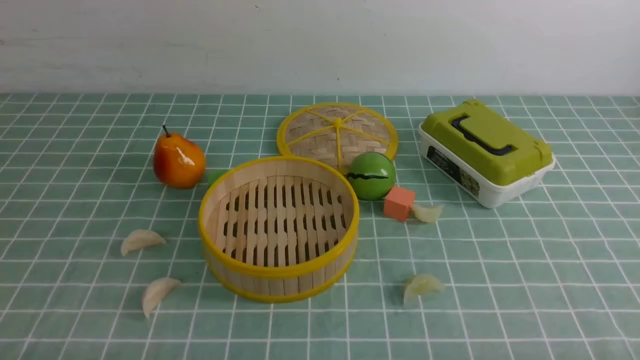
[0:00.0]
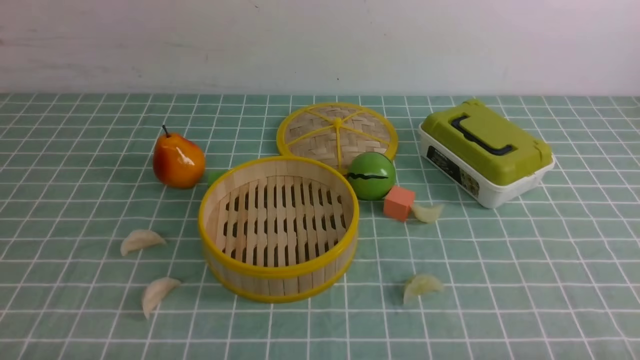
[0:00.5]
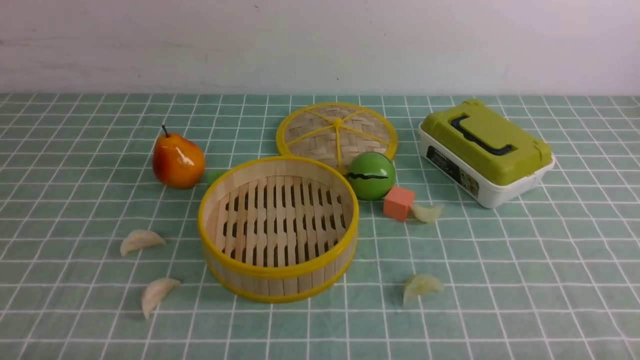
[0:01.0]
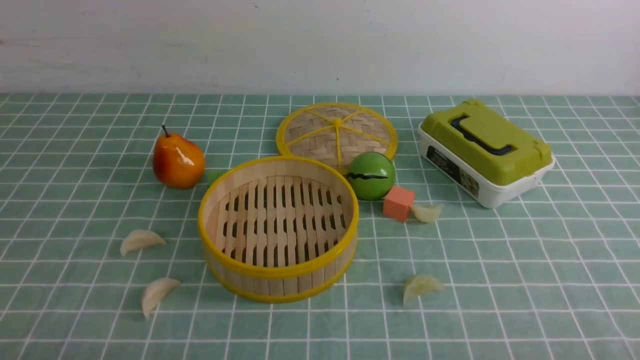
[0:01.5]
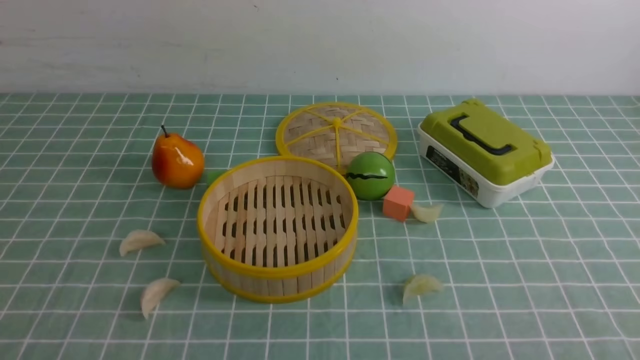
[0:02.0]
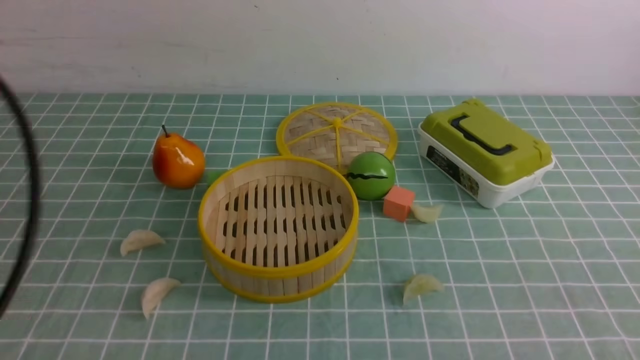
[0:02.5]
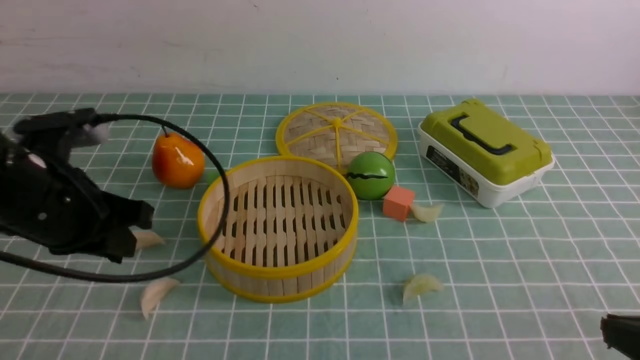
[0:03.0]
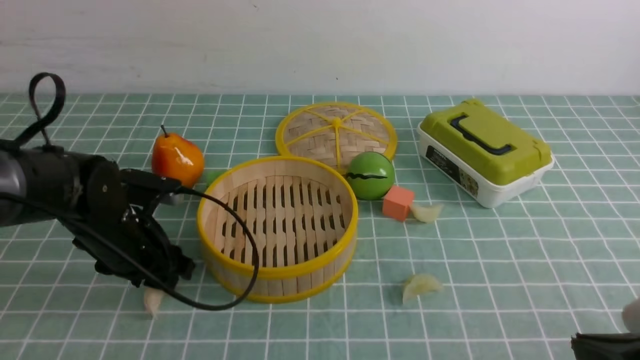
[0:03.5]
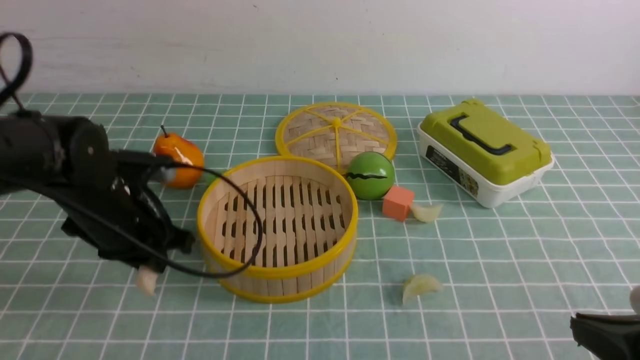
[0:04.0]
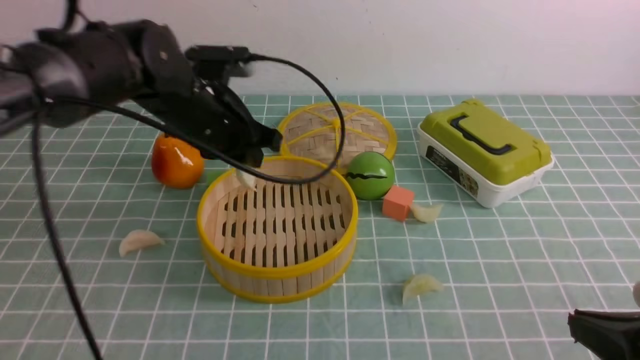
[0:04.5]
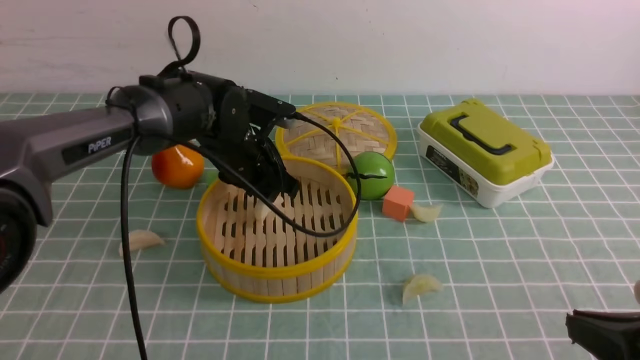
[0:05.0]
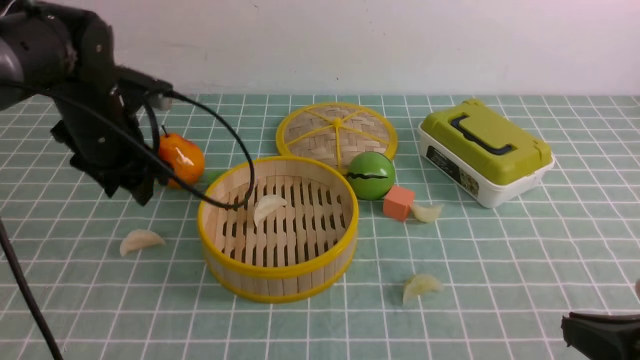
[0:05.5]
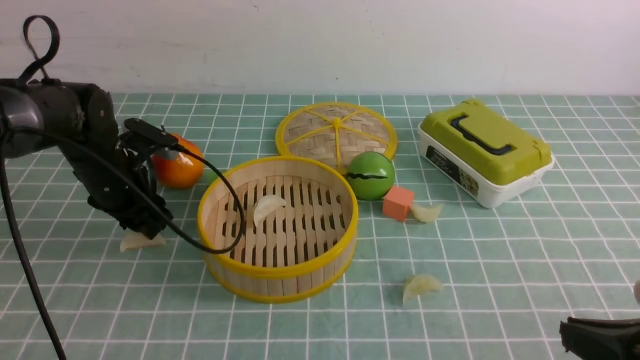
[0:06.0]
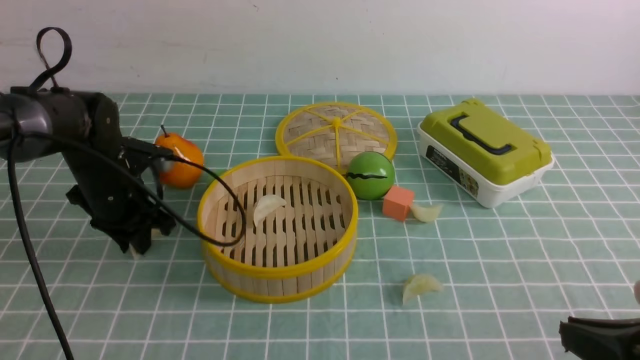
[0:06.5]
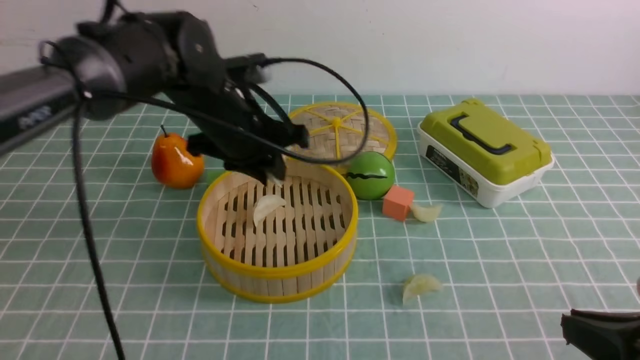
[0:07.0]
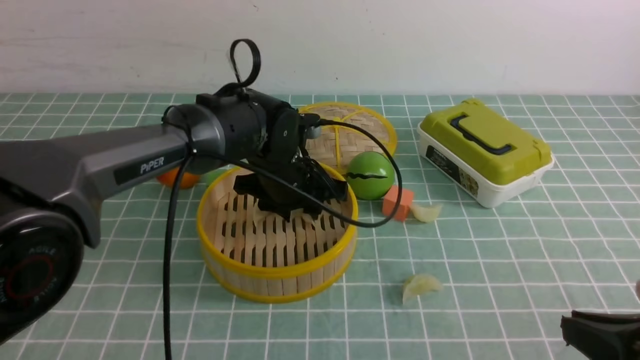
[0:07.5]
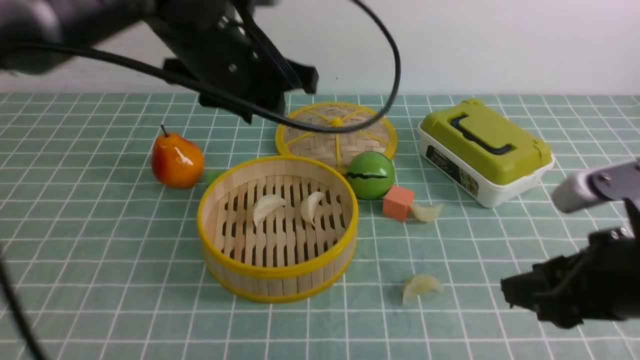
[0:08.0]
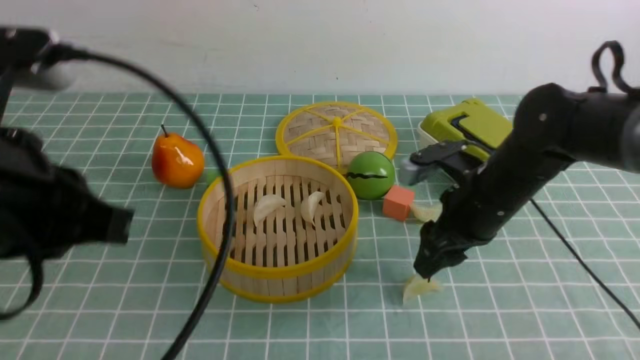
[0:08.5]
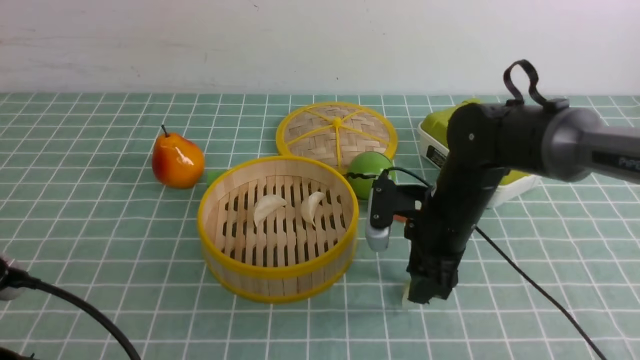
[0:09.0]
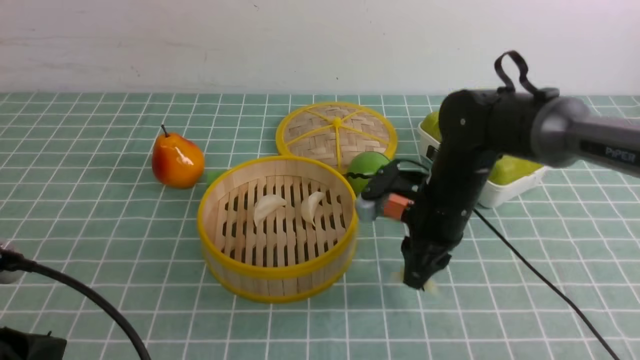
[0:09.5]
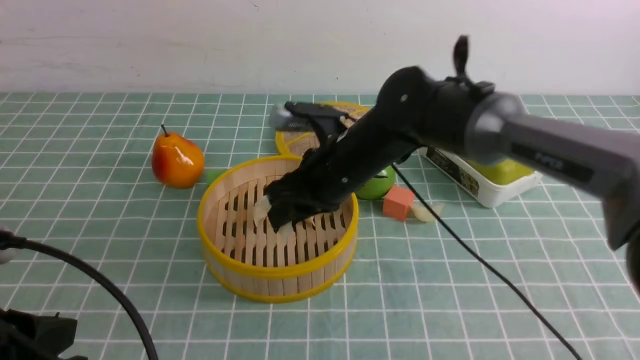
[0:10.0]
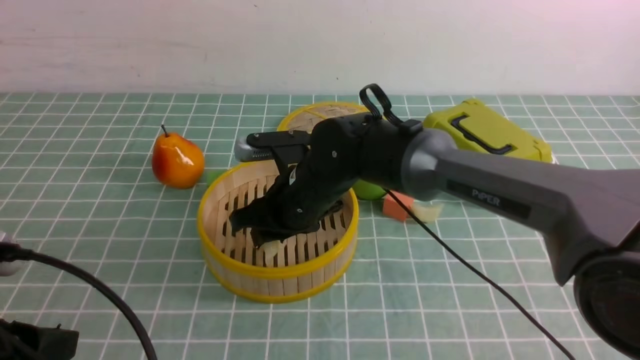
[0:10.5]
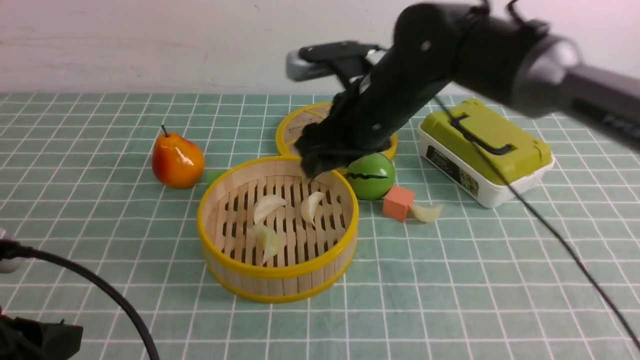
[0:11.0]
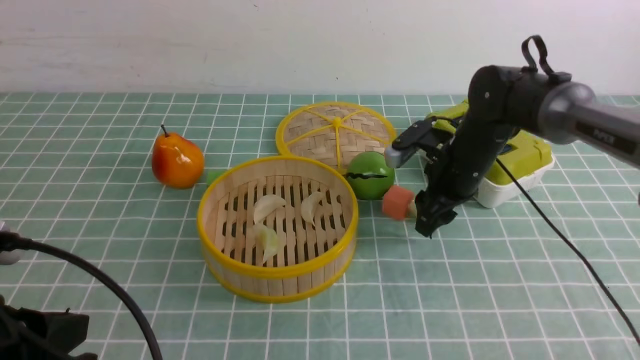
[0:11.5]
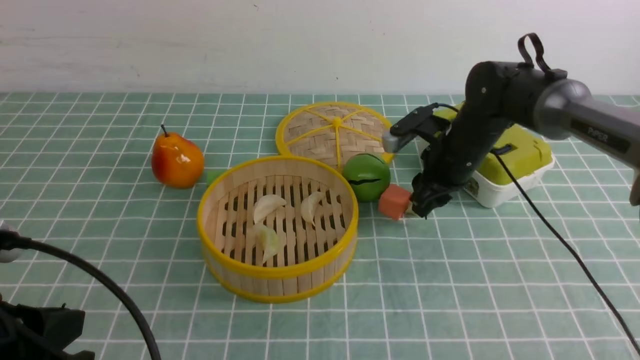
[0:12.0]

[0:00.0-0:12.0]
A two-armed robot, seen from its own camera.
Task of the whole recording: put the dumplings into the steamer on the table with the blue tablecloth.
Step, 0:00.0 to 0:04.0: use the left arm to grab a dumpling.
Step, 0:04.5 to 0:05.0: use the left arm to put the dumpling into the steamer.
Step, 0:05.5 to 0:06.5: use the left arm to grab a dumpling.
Step, 0:07.0 to 0:07.5: use the left arm to put the dumpling into the steamer.
Step, 0:08.0 to 0:09.0: use the right arm to grab a dumpling.
Step, 0:09.5 to 0:10.5: use the right arm to put the dumpling into the steamer.
0:02.0 to 0:04.0: The right gripper moves forward and to the left, some 10 cm, while the left gripper shifts approximately 30 cm forward, and closes, then reopens.
0:04.0 to 0:06.0: The left gripper heads forward, covering approximately 5 cm, travels to the right and back again, approximately 10 cm each way, and opens up.
0:06.0 to 0:08.0: The right gripper heads forward, covering some 10 cm, and opens its fingers, while the left gripper travels upward, to the right and backward by about 25 cm.
0:08.0 to 0:10.0: The right gripper travels to the left and forward by some 30 cm; the left gripper is displaced backward, to the left and downward by about 25 cm, and closes up.
0:10.0 to 0:12.0: The right gripper moves to the right and forward, roughly 15 cm.

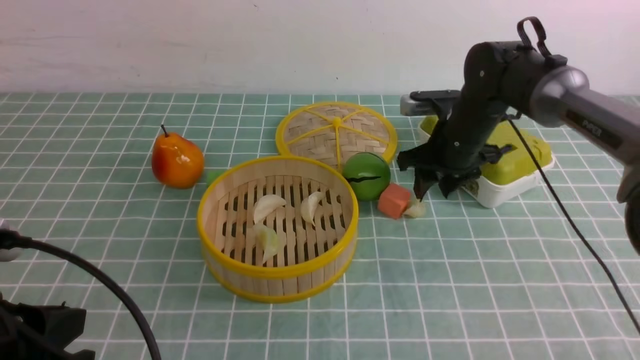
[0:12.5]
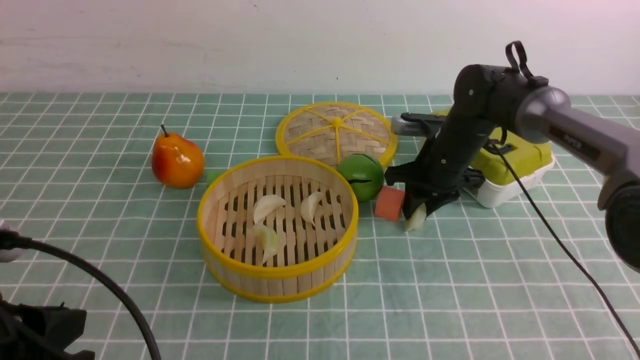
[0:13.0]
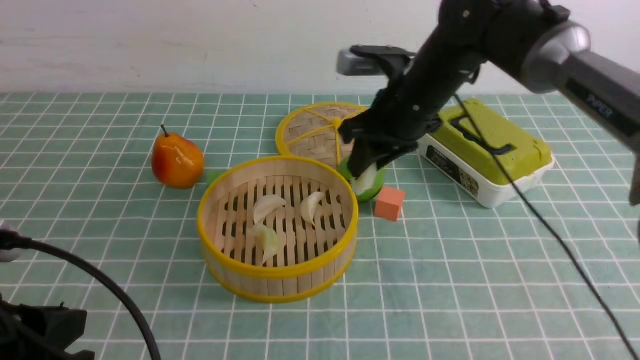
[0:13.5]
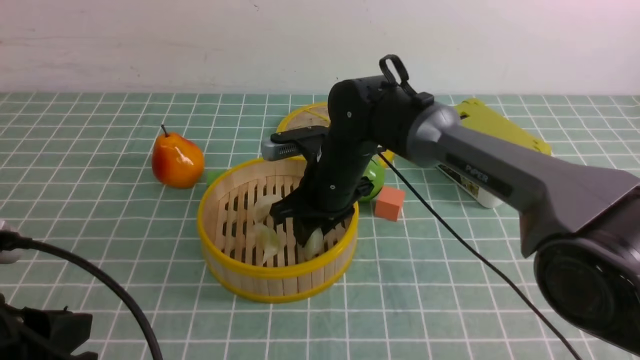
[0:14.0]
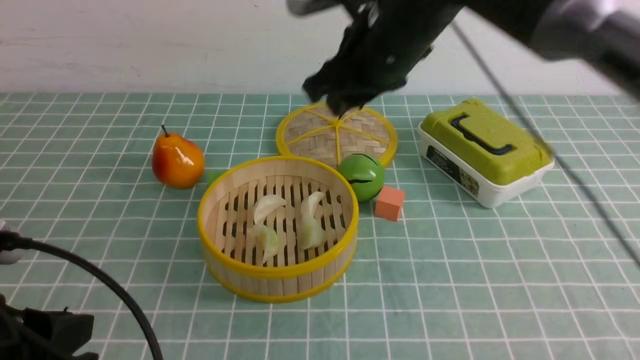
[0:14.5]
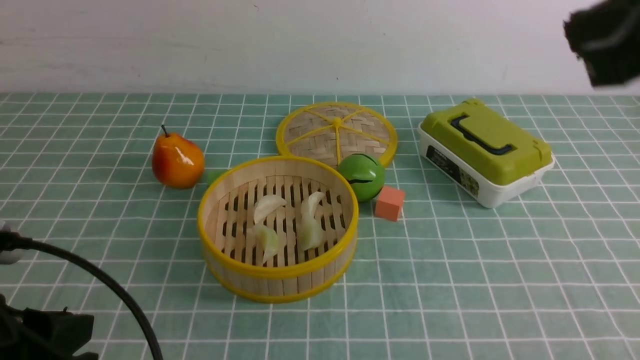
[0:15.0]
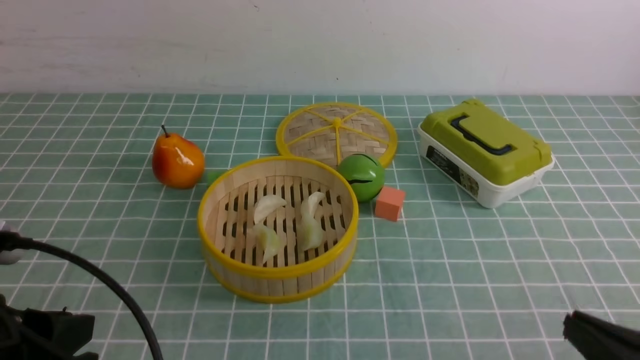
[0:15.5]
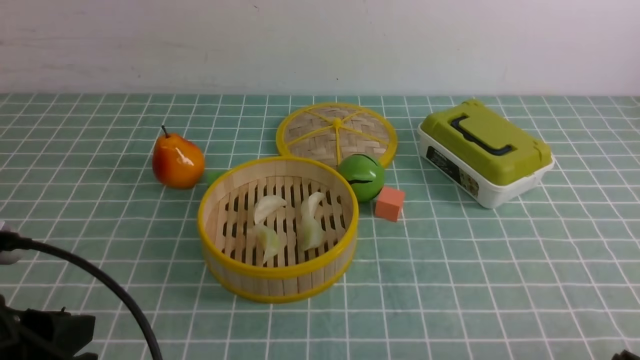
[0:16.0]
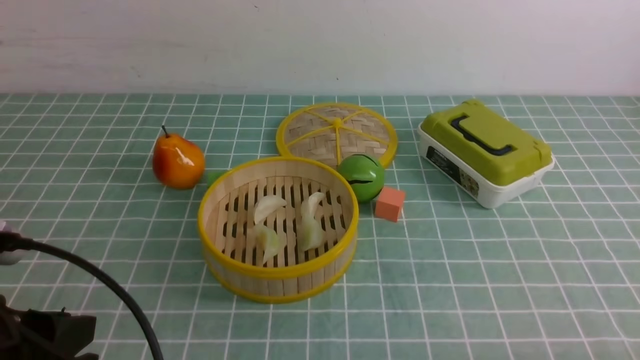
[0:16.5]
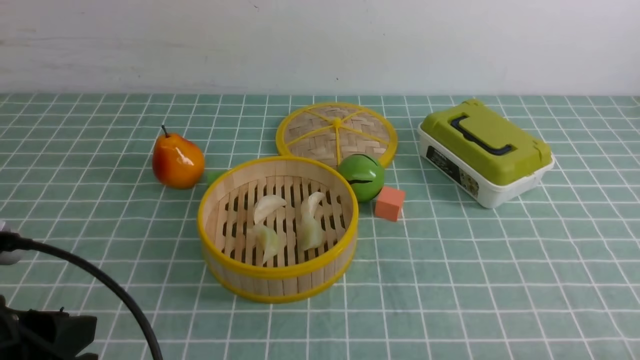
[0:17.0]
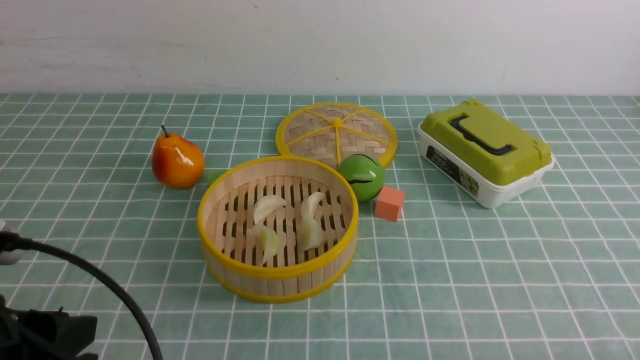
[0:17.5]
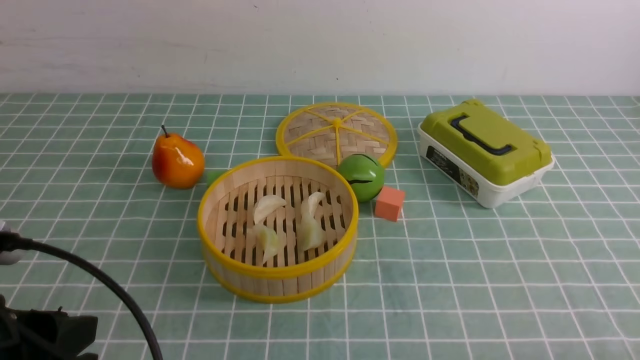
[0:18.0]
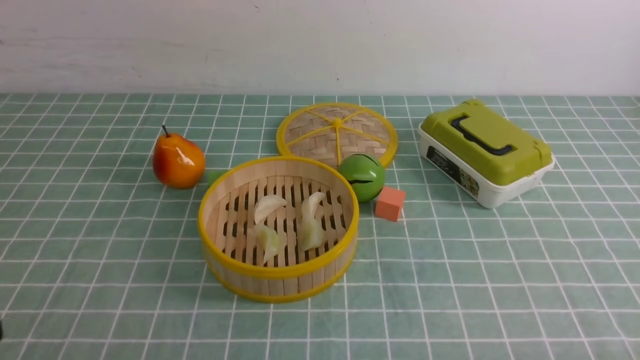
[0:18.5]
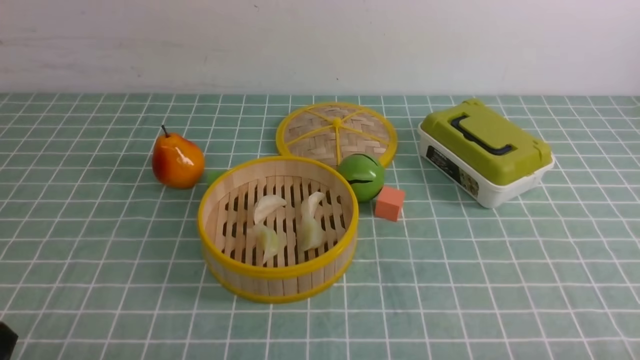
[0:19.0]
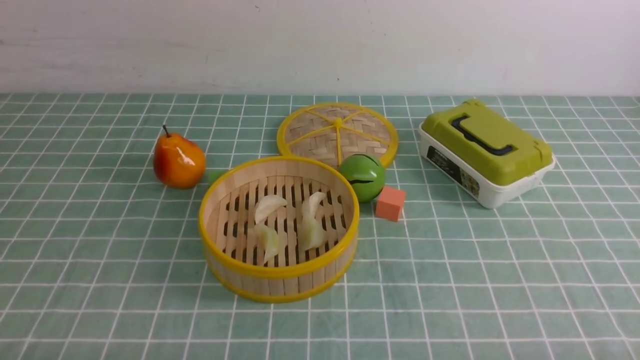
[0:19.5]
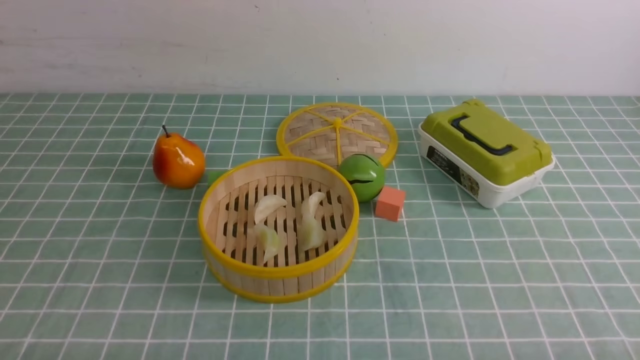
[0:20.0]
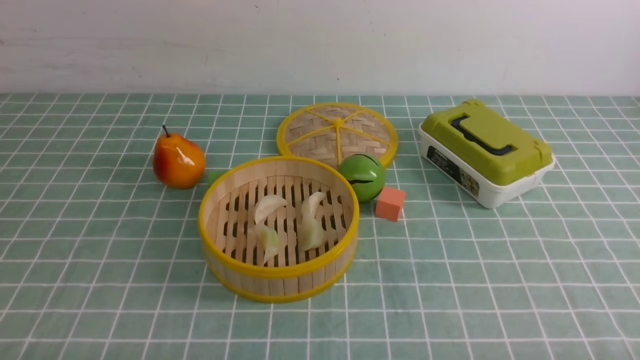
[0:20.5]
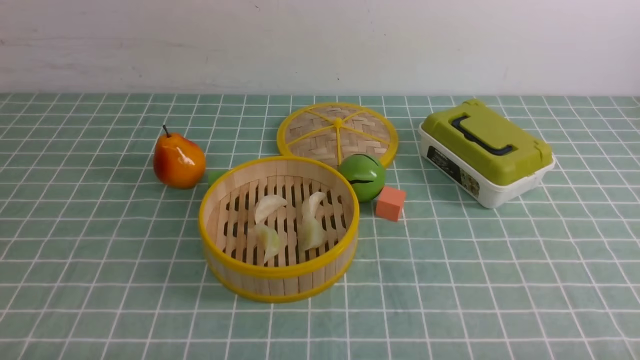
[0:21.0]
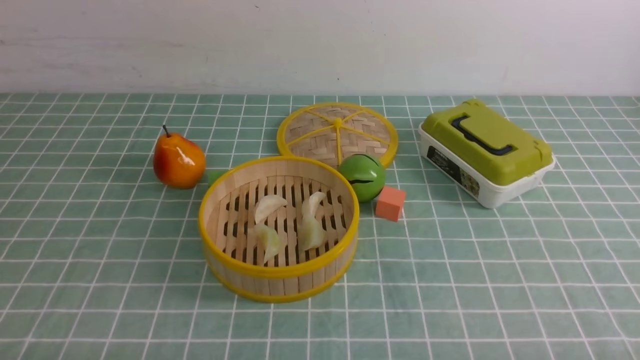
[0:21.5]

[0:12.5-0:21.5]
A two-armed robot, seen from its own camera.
Task of the whole recording: put the dumplings into the steamer on the table with the blue tablecloth.
Step, 0:14.0 to 0:14.5: use the right arm to put the dumpling into the steamer.
0:12.5 to 0:14.5: The right gripper moves up and down over some 20 cm, changing direction 2 times.
0:14.5 to 0:17.0: The right gripper is displaced backward, to the right and downward by approximately 40 cm, and closes its fingers.
0:17.0 to 0:19.5: The left gripper heads downward and backward, covering approximately 10 cm, and closes.
0:19.5 to 0:21.5: Neither gripper changes place.
